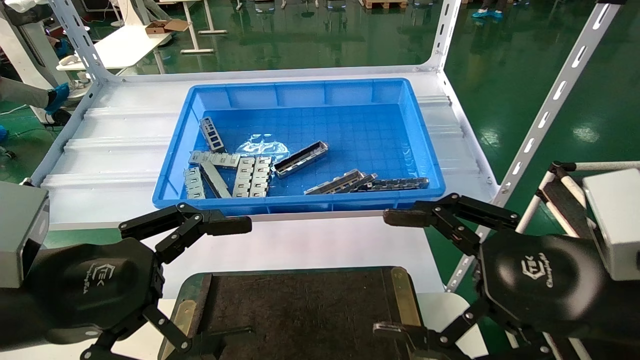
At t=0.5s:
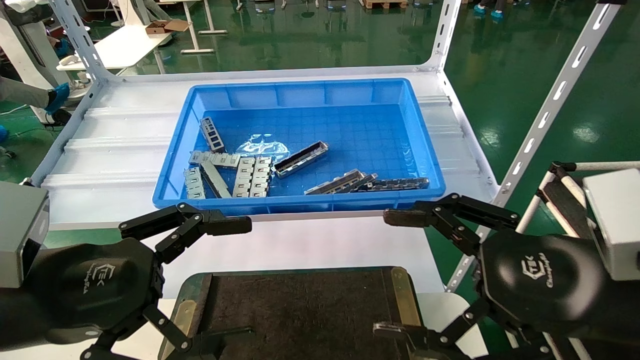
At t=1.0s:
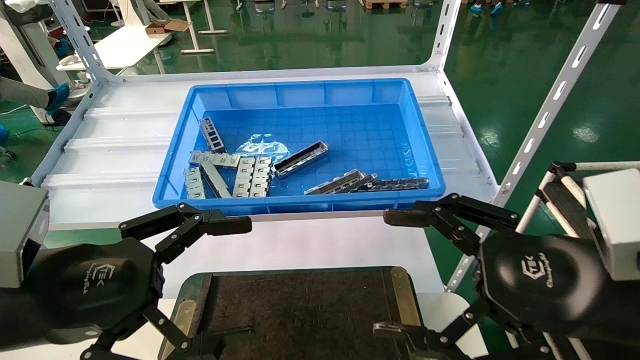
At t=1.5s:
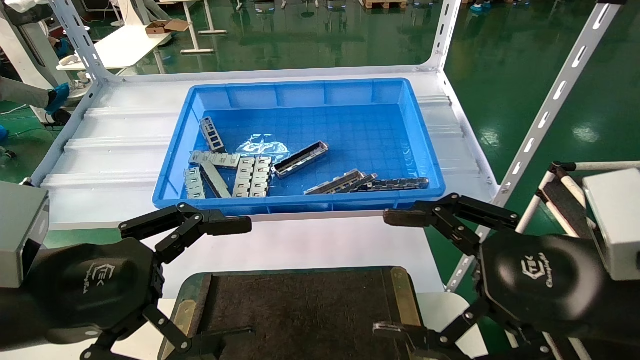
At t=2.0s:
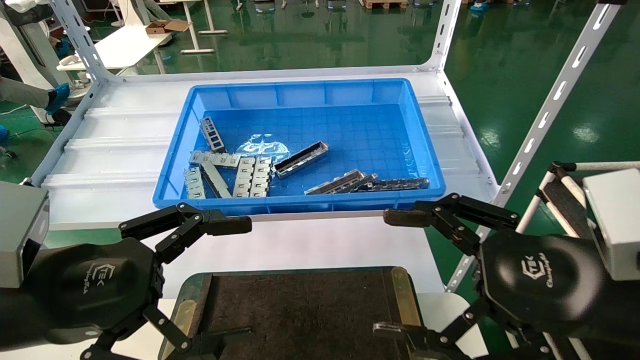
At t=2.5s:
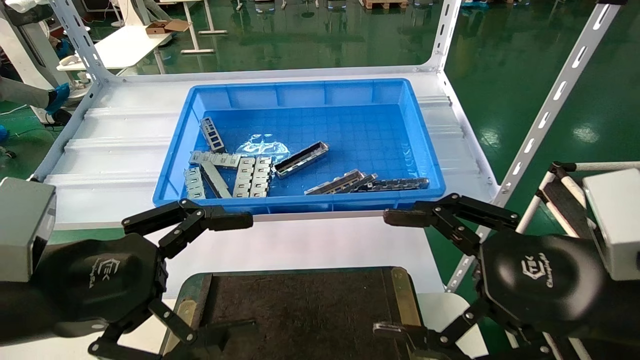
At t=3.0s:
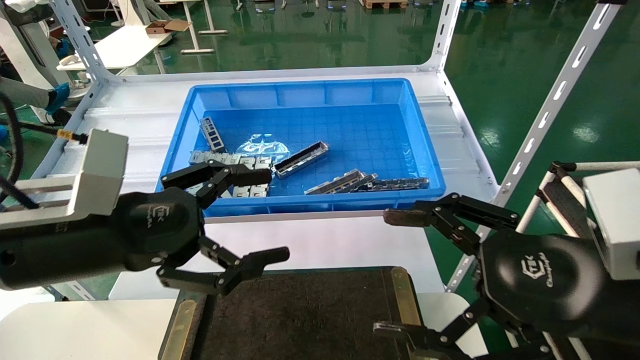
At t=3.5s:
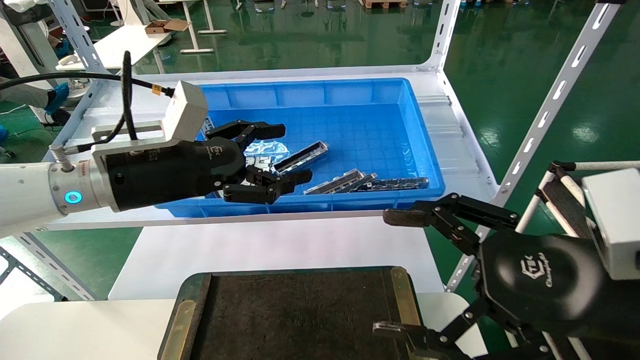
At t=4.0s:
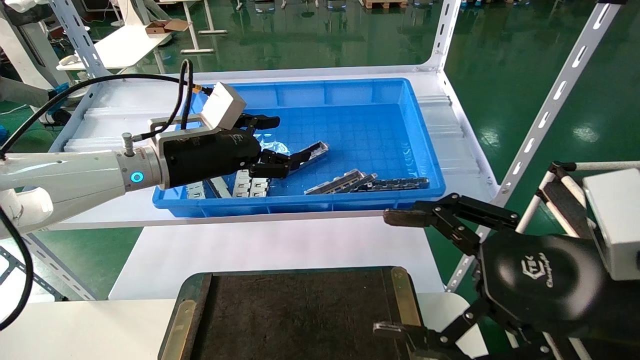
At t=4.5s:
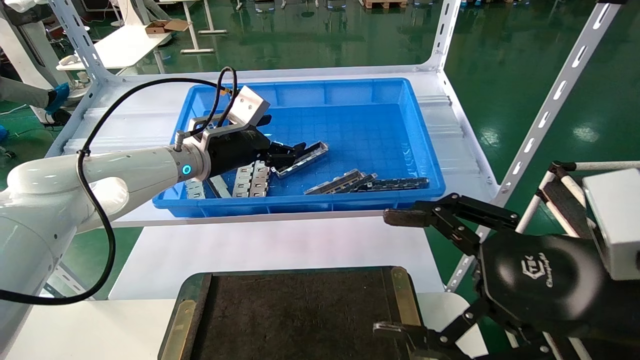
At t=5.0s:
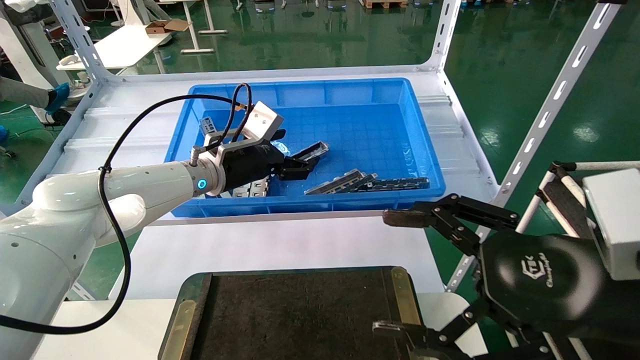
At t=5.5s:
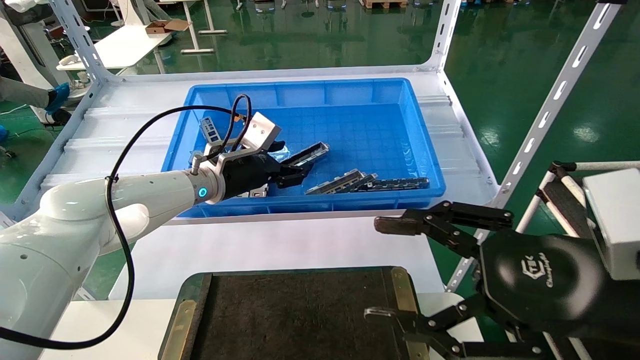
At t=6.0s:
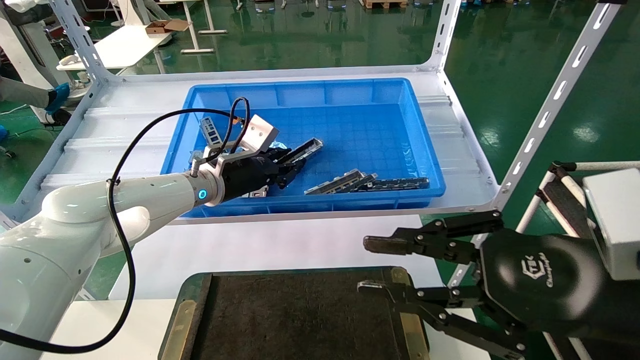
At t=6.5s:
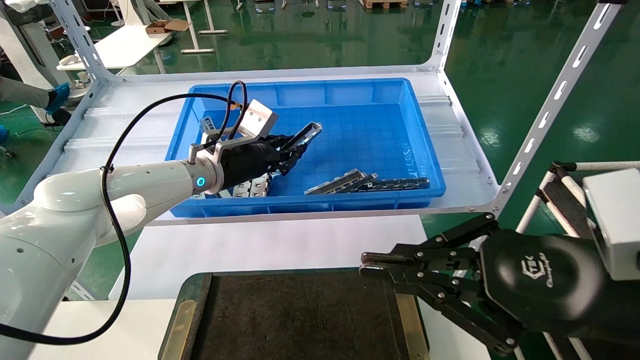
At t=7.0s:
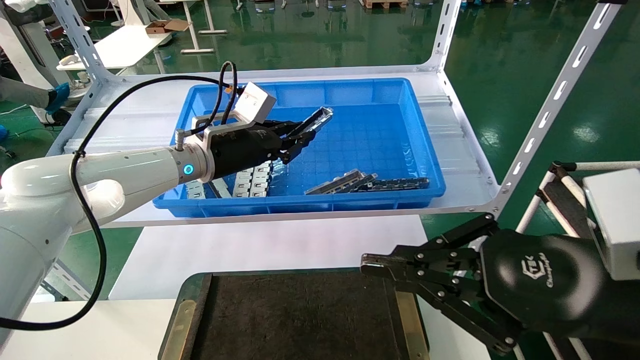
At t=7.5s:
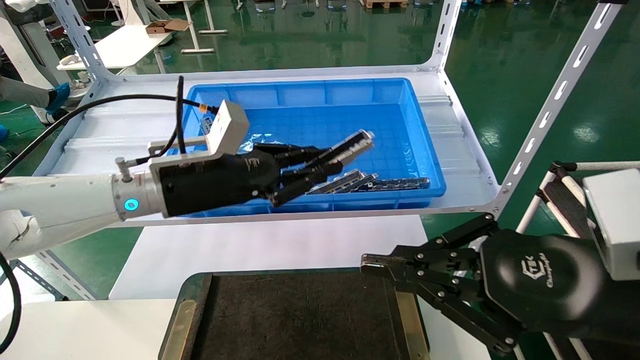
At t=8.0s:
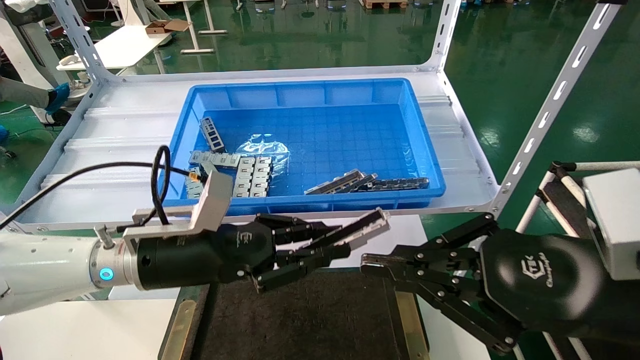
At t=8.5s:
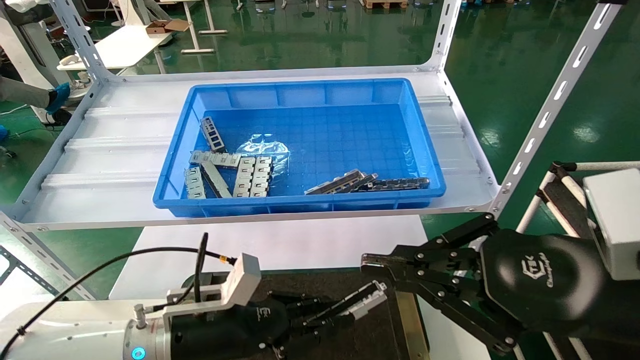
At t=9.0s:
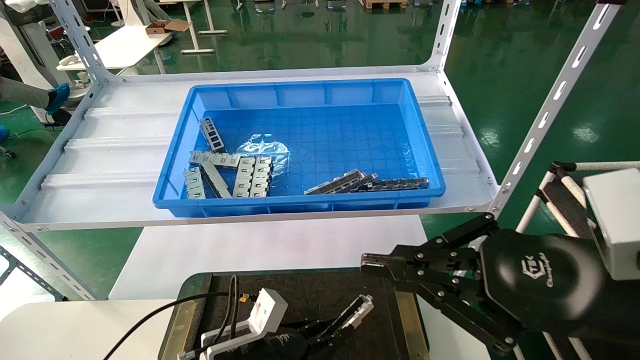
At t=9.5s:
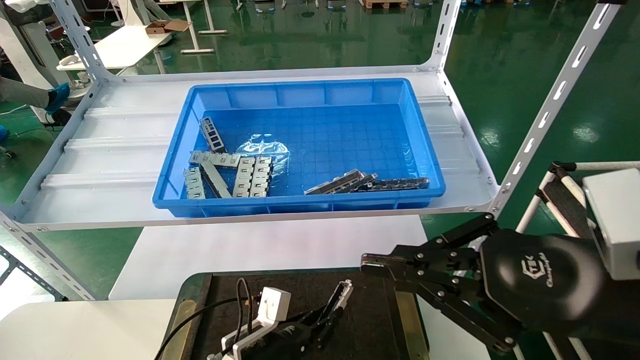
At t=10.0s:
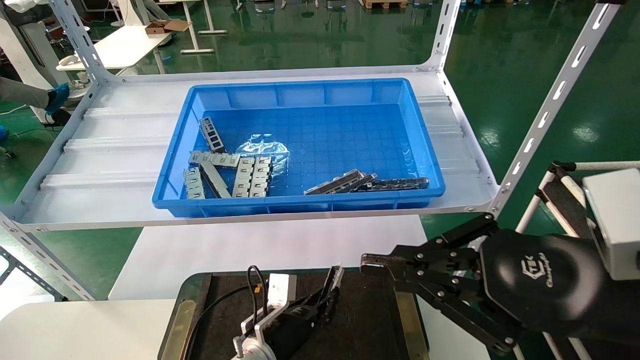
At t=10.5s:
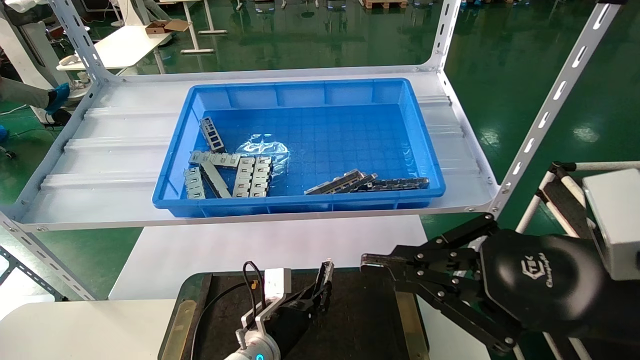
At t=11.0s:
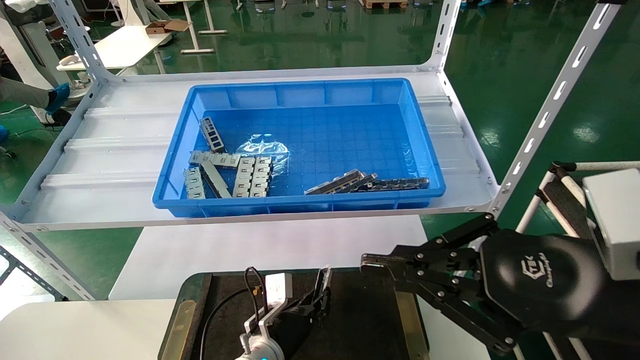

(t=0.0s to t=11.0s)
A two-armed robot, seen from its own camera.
Task of the whole recording: Grasp the part with one hand and place it on the black container.
Step, t=2.5s - t=6.0s: Pick up the front USB bracket from the feeding area.
t=0.0s - t=2.0s: Both grippers stay about where they are.
t=2.0s - t=3.5s: The left gripper goes some 15 cm forward.
t=3.5s - t=5.5s: The left gripper is displaced forward and to the right by some 15 cm.
t=5.5s - t=7.5s: The left gripper shifts approximately 10 cm backward, and closes its fingers; the right gripper closes its fingers.
t=7.5s - t=9.0s: The left gripper shifts approximately 25 cm downward.
t=9.0s - t=11.0s: The left gripper moves forward and to the right, about 10 cm.

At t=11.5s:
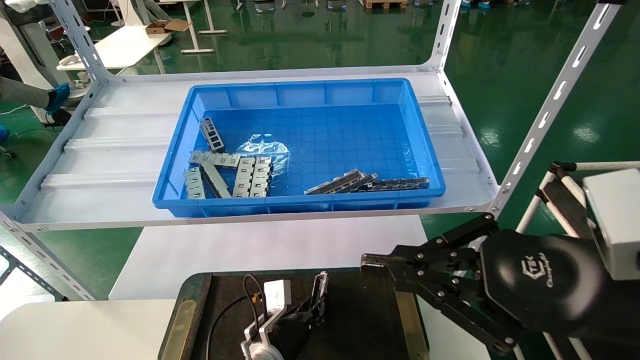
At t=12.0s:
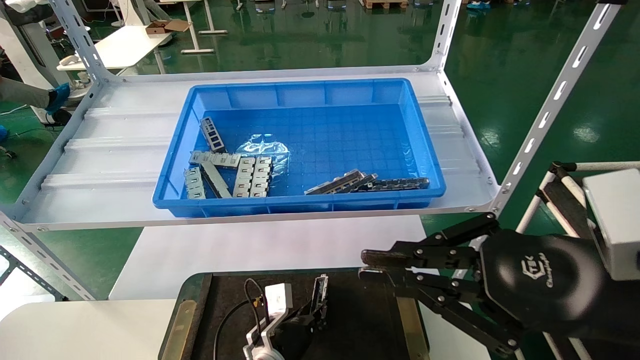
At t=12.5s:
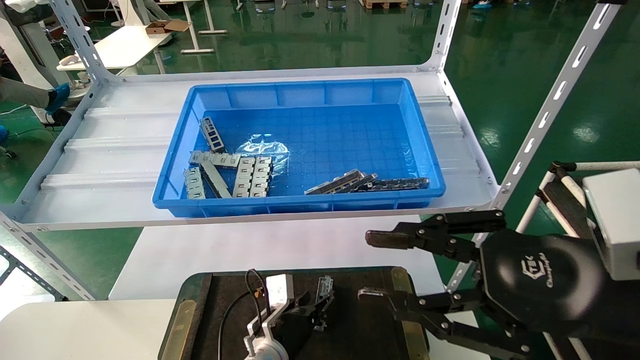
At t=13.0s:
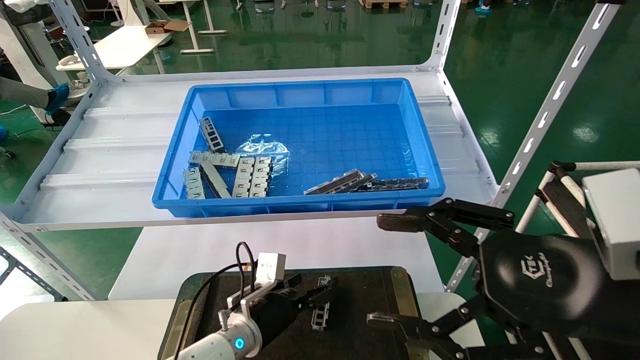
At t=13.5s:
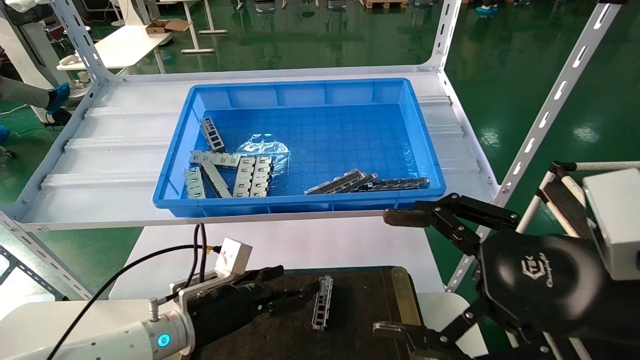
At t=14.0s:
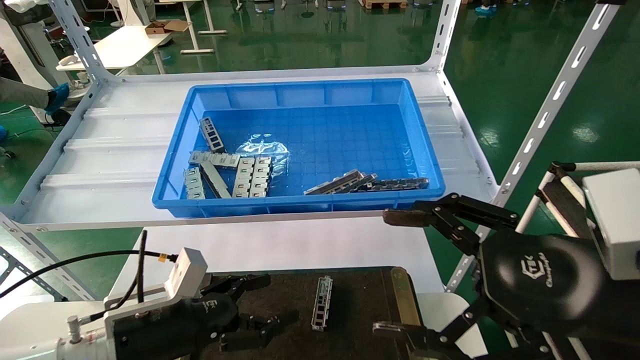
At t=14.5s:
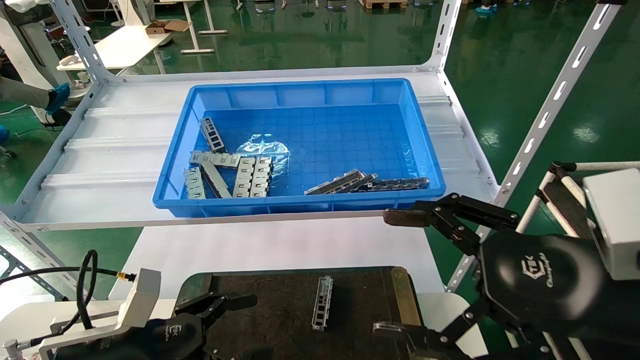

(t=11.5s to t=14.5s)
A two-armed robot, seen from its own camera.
Task of the whole recording: Grasp the part with one hand and place it on the black container.
t=11.5s - t=13.0s: The left gripper heads upward, covering about 5 cm, and opens. Meanwhile the right gripper opens its fingers.
t=13.0s - t=14.5s: The left gripper heads to the left, backward and upward, covering about 20 cm.

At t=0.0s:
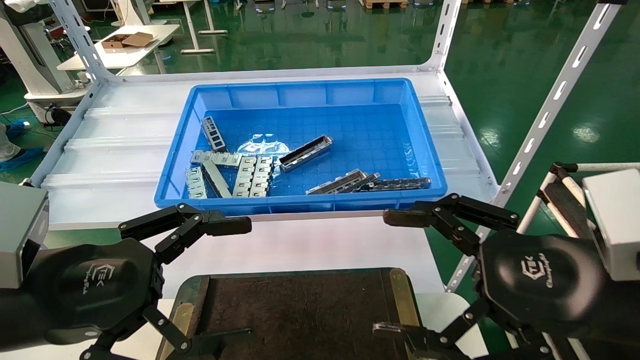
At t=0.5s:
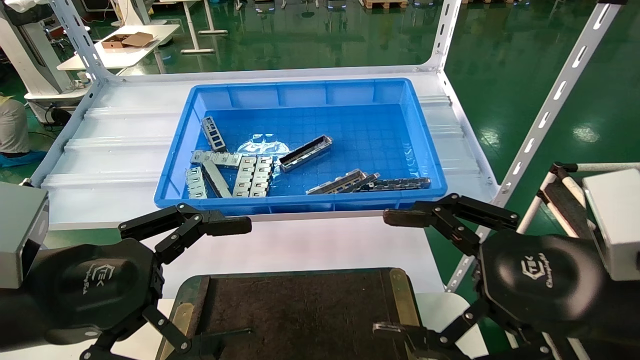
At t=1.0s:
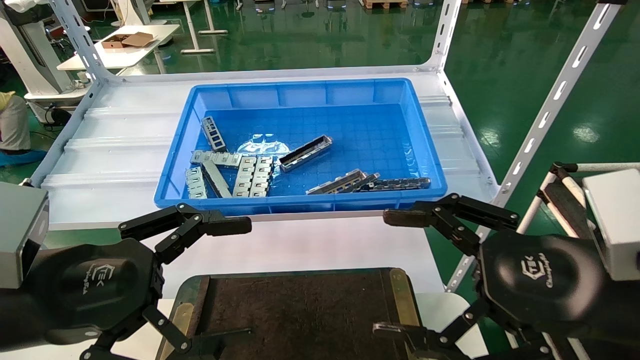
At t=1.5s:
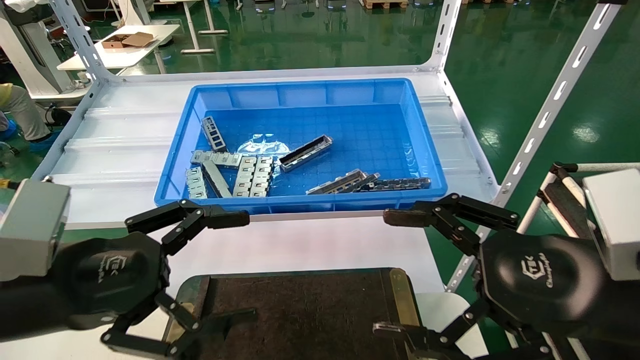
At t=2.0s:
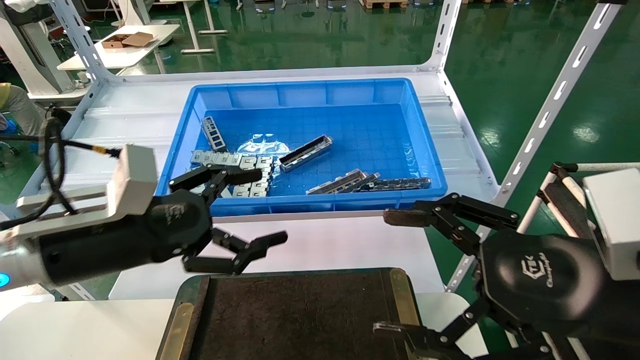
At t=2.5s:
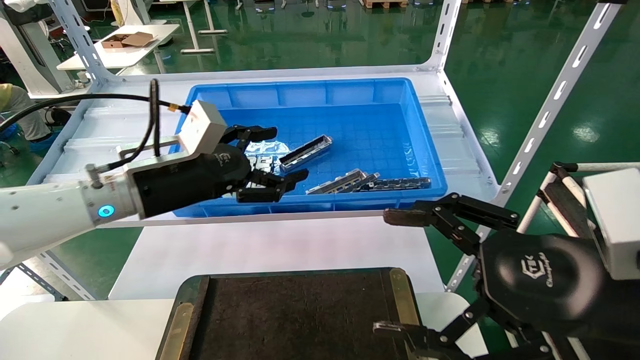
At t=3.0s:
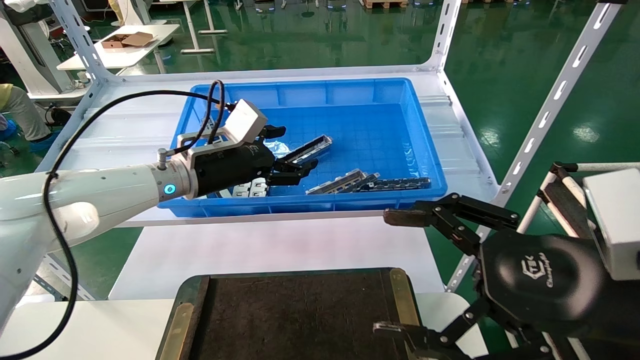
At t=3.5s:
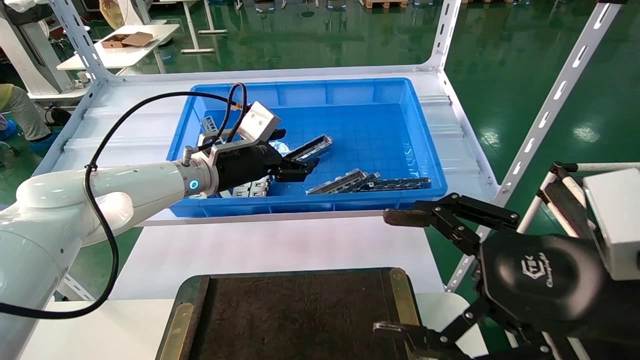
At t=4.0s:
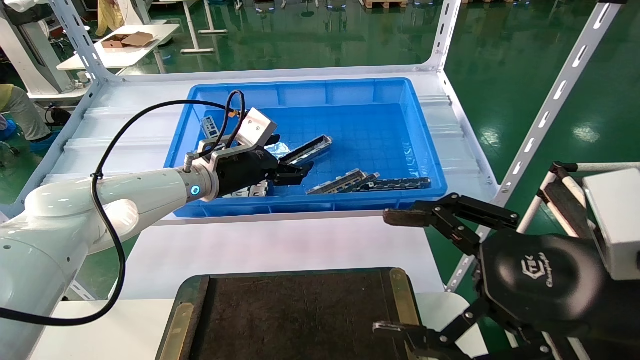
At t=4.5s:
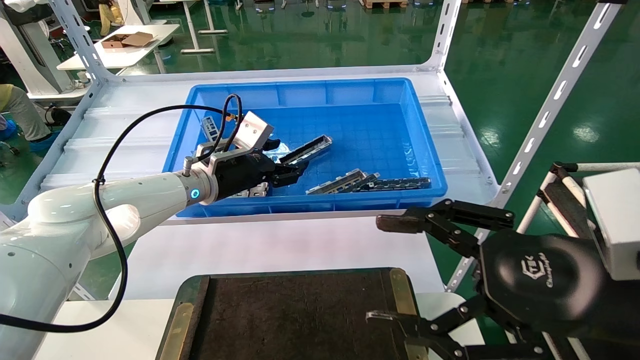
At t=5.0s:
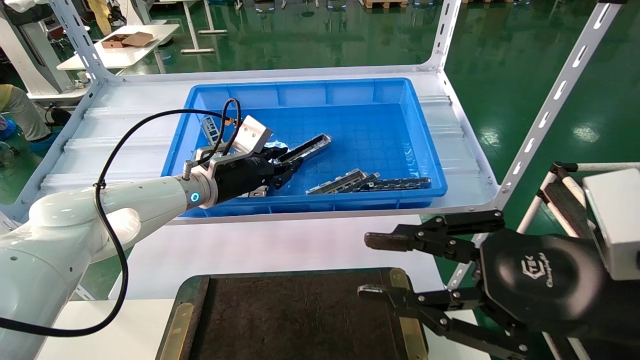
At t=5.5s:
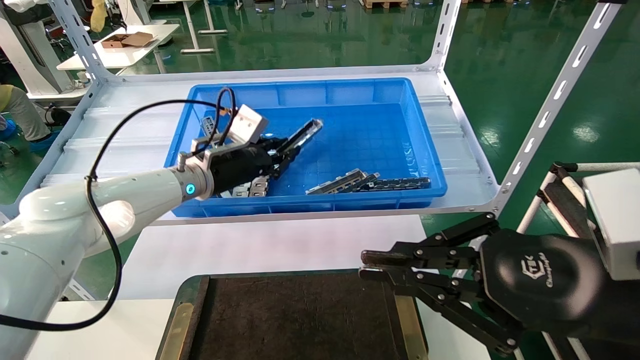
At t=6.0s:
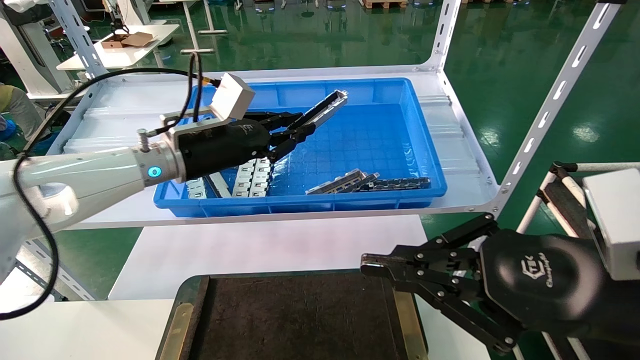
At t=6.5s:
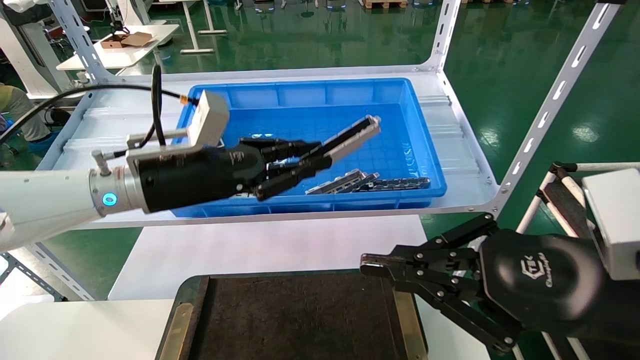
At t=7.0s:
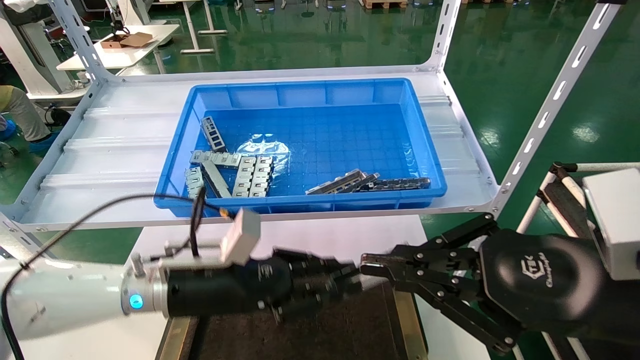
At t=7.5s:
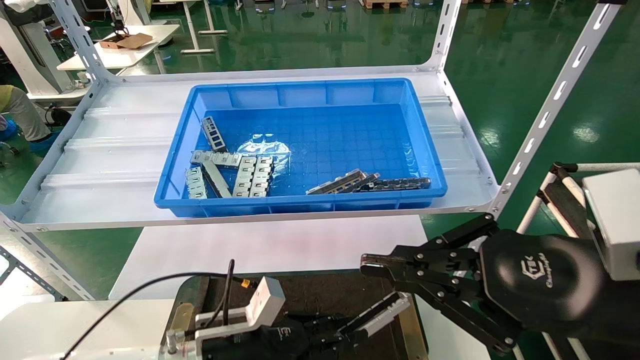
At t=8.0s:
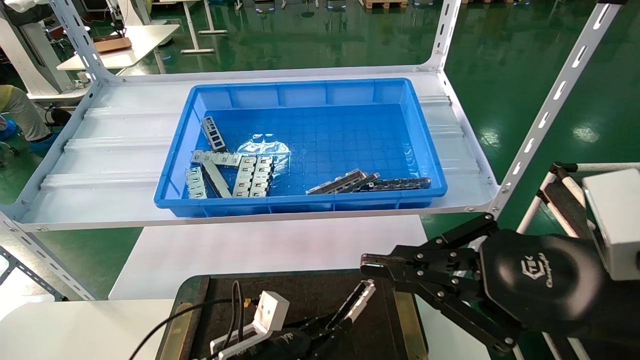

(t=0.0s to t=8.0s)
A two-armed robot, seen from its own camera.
Task of the whole recording: Grasp the part with one hand and place it on the black container.
Step, t=1.5s - t=5.5s: Pick up the front USB bracket from the feeding area.
t=0.0s - t=2.0s: The left gripper shifts roughly 10 cm forward.
t=2.0s - t=4.0s: The left gripper moves forward, some 20 cm.
t=4.0s - t=6.0s: The right gripper closes its fingers. Meanwhile the left gripper shifts by roughly 5 cm, and closes.
t=6.0s - t=8.0s: The left gripper shifts approximately 30 cm downward.
